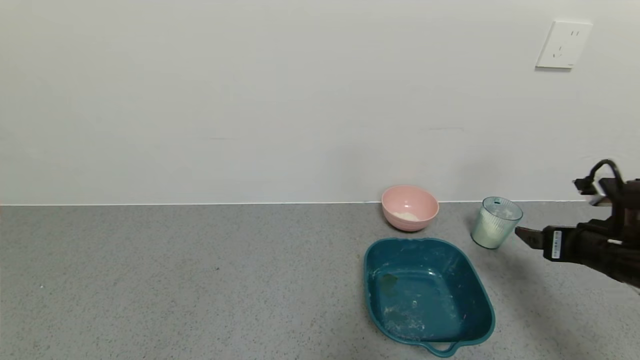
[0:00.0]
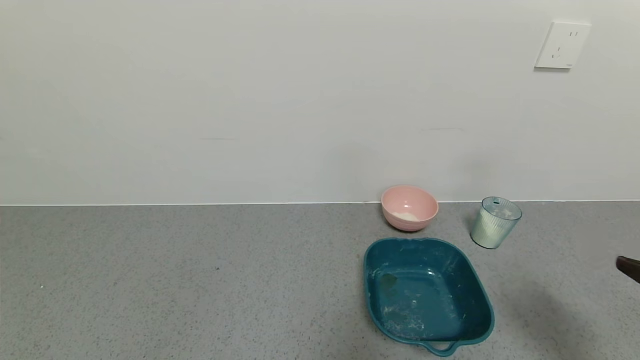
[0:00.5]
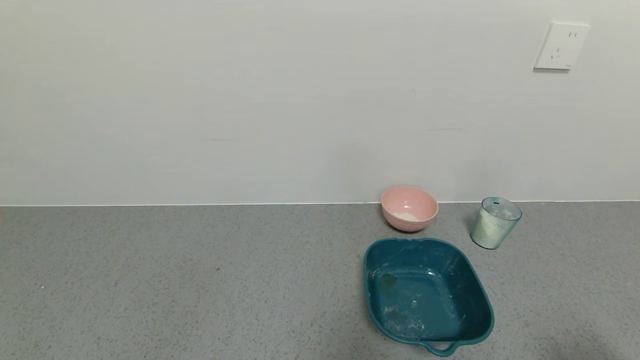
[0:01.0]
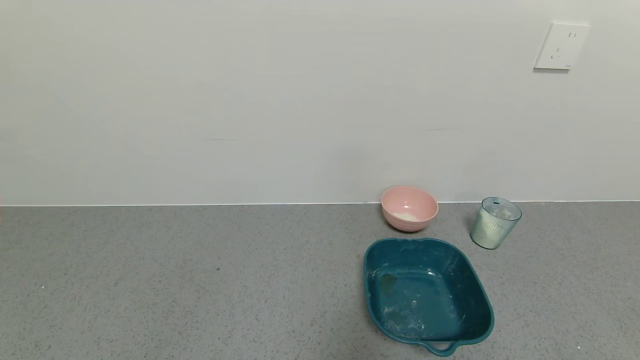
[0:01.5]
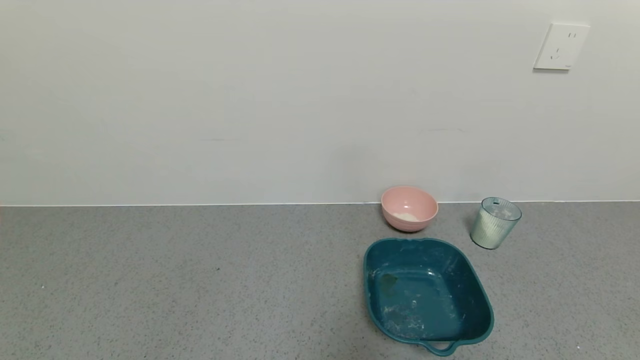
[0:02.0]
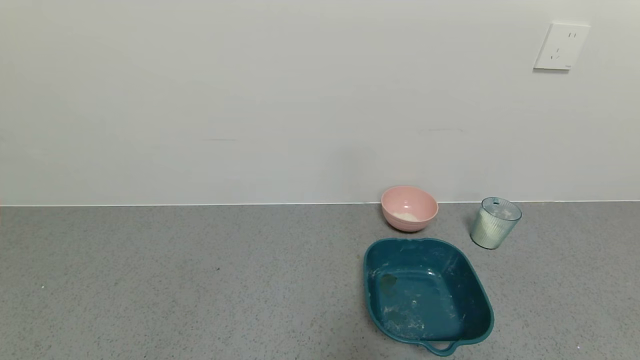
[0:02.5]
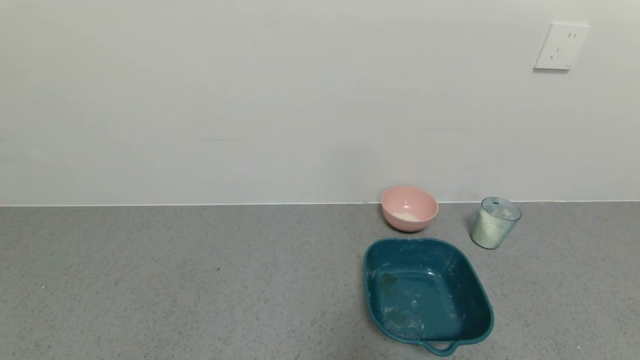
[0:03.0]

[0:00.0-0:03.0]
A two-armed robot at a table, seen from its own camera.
Task of the whole recording: use a gripper to pick up the cup and pour the powder into a bowl or tray.
0:00.0 to 0:01.5: The right gripper travels backward by approximately 30 cm.
